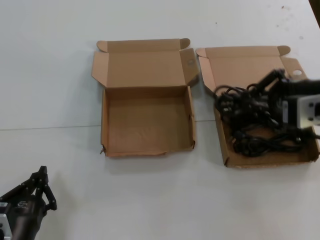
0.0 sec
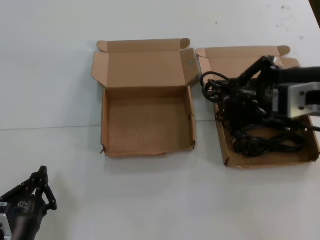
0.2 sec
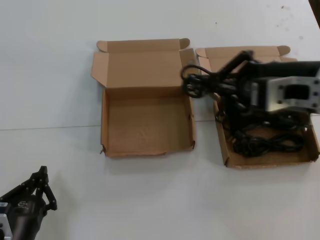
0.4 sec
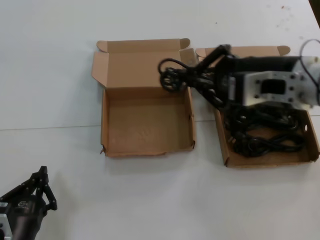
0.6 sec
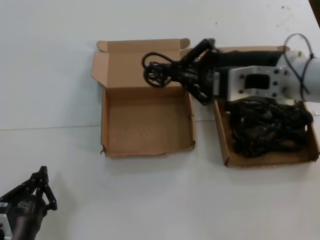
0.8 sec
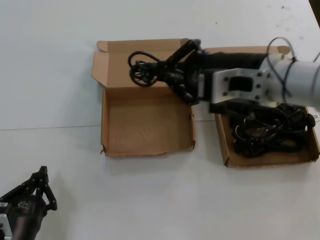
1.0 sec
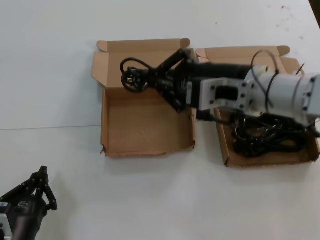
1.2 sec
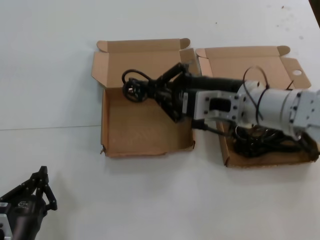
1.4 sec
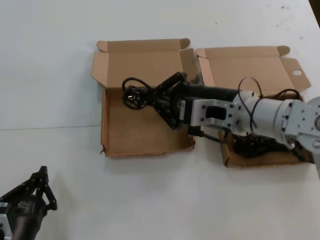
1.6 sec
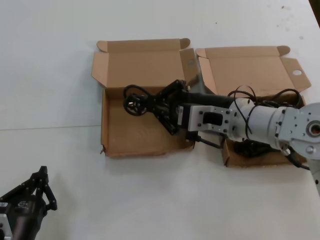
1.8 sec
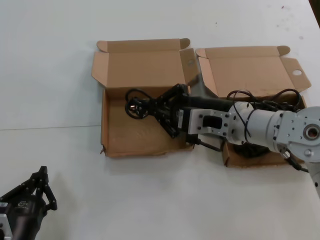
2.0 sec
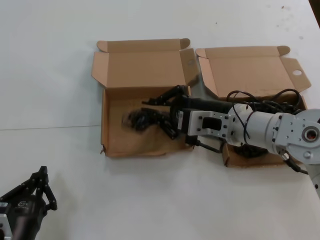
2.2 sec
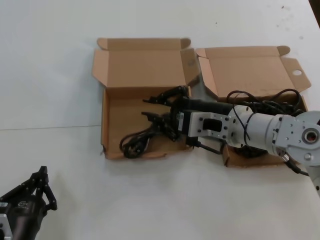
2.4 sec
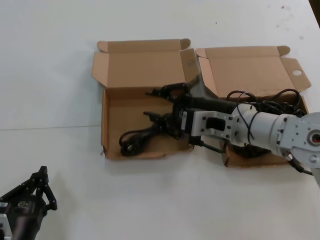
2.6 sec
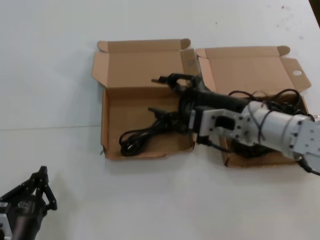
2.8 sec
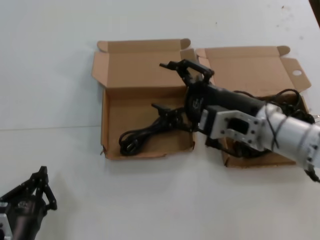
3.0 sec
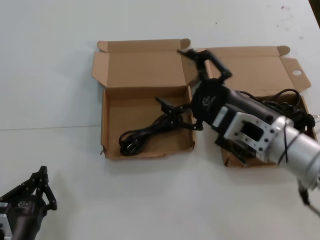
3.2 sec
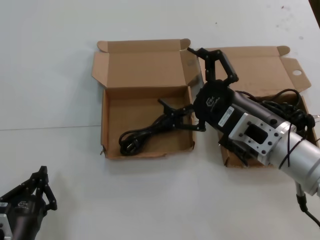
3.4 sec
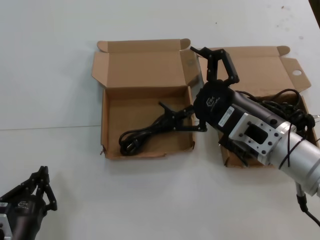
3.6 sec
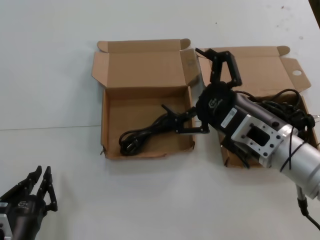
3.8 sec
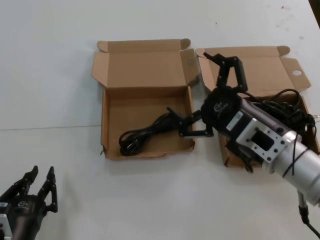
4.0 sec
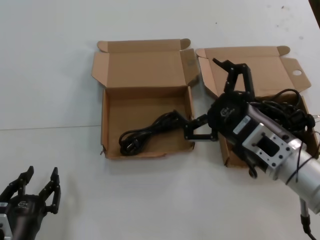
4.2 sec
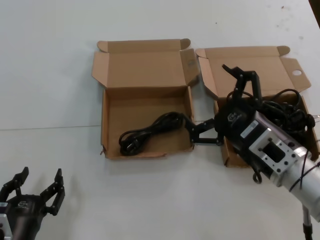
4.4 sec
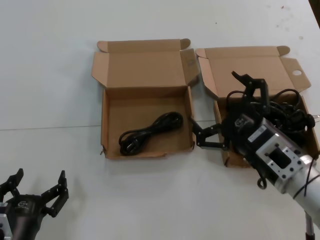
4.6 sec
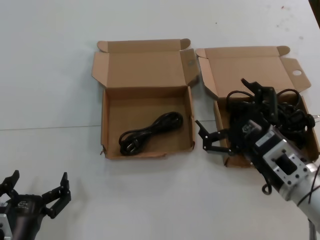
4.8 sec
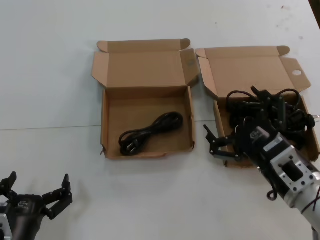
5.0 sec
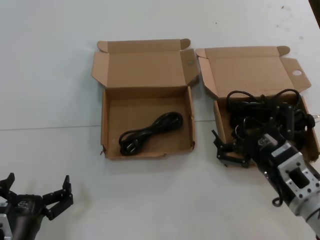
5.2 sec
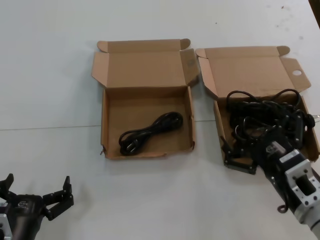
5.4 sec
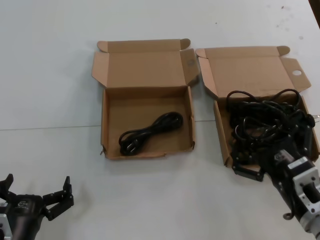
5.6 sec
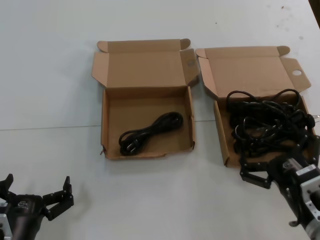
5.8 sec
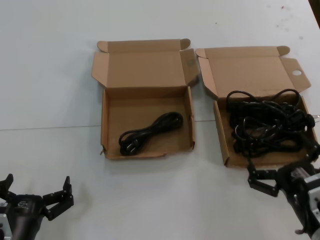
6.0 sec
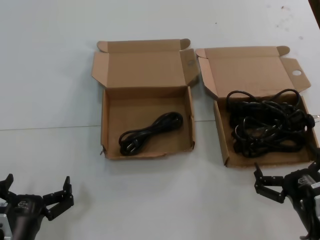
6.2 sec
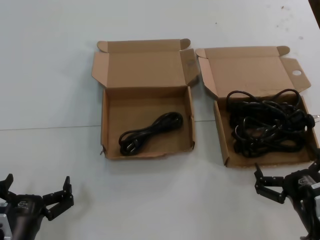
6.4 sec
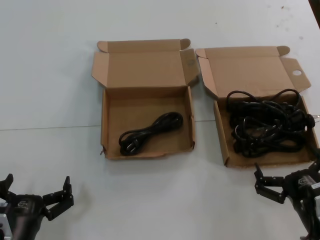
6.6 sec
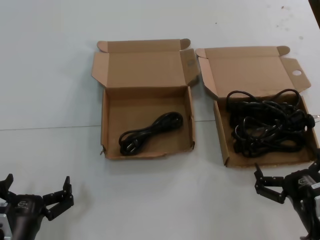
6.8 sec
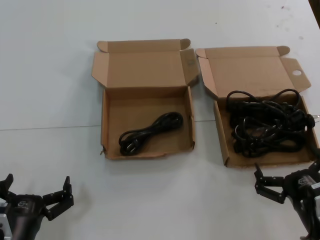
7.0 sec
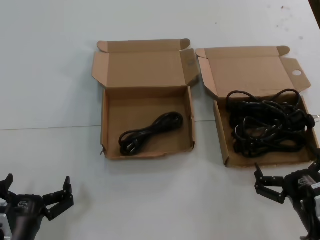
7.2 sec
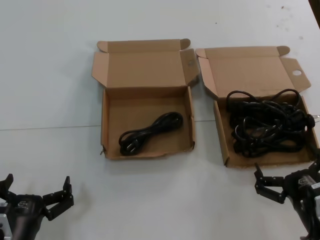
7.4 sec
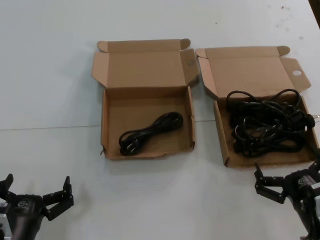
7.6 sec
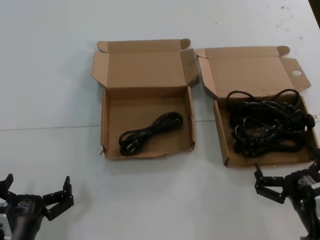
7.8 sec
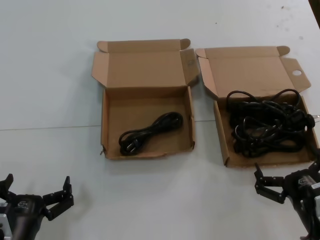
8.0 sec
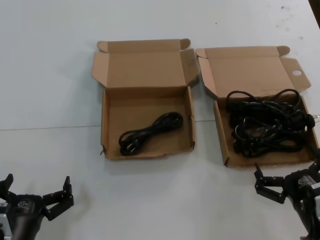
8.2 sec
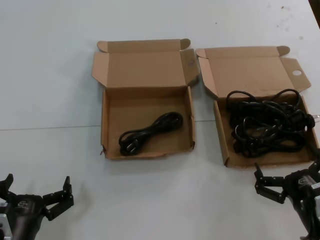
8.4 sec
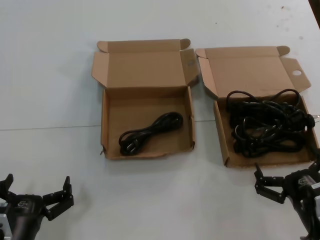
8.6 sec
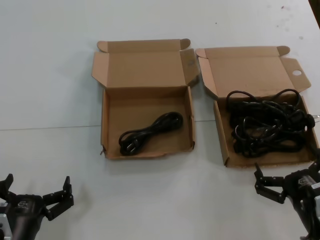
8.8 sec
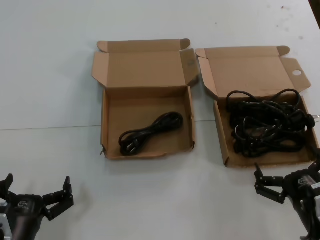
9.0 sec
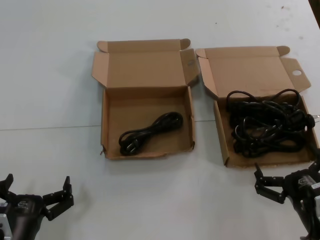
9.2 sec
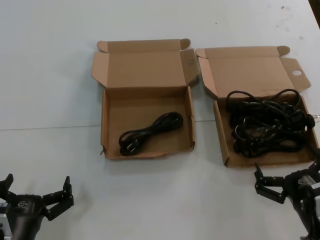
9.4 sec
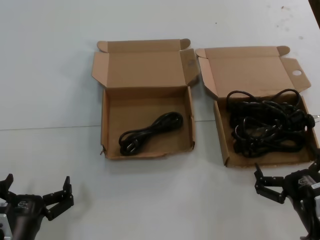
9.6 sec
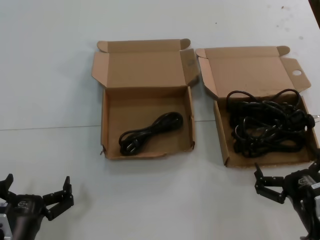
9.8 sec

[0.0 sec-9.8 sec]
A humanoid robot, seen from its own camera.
Task of the whole recording: take the parts from the box containing them and put them into an empty box.
Step, 0.0 sec to 2.2 sec: Place the data cable in the another box.
0.0 sec to 1.4 sec: The right hand moves to the left and forward, some 15 cm.
1.4 sec to 2.8 sec: The right hand changes place by some 5 cm.
2.8 sec to 4.2 sec: The right hand moves backward and downward, approximately 10 cm.
4.2 sec to 5.6 sec: The right hand shifts approximately 10 cm downward.
5.6 sec to 7.0 sec: The right hand ends up some 5 cm from where it was.
7.0 sec to 9.8 sec: Both hands stay about where they are.

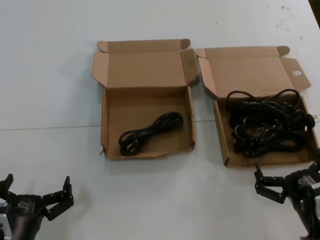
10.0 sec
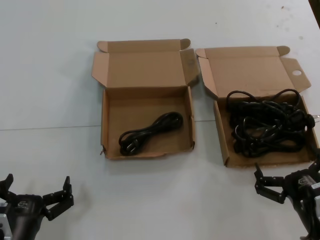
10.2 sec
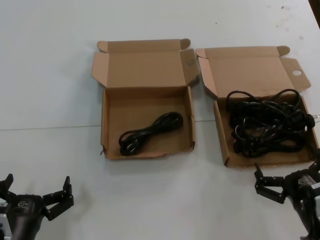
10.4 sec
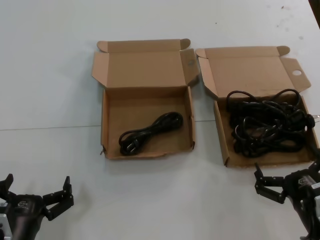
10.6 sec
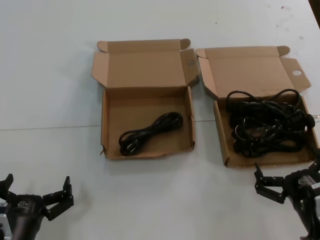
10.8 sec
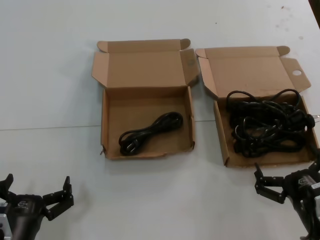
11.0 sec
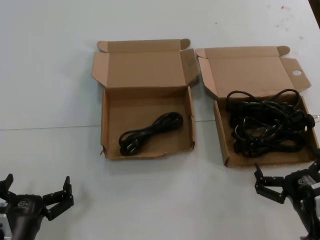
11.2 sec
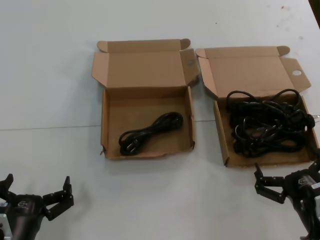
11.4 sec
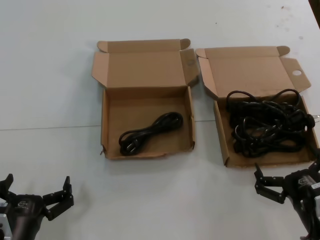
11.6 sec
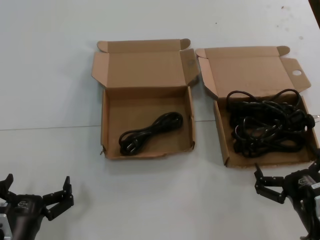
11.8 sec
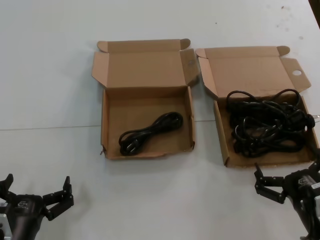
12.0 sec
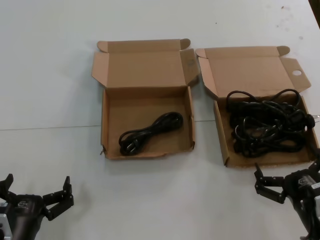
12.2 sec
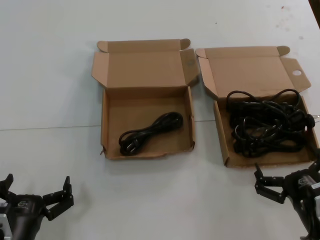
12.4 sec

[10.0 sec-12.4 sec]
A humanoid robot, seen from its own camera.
Task of the whole recording: take the parts from the box containing them and put them into an empty box.
10.0 sec to 12.4 sec: The two hands keep their place.
